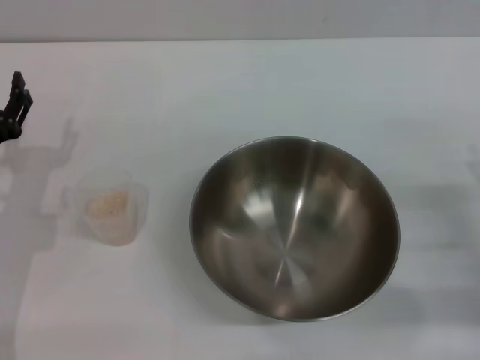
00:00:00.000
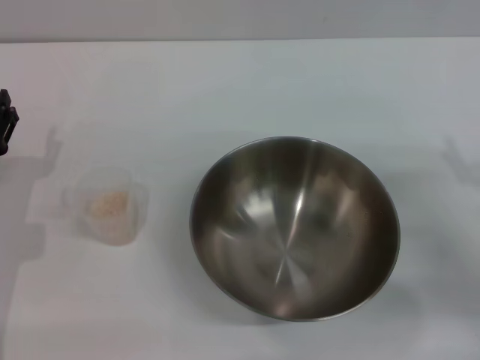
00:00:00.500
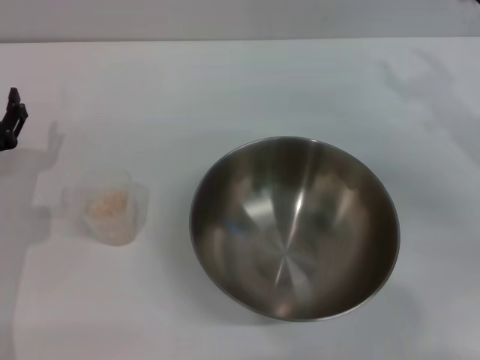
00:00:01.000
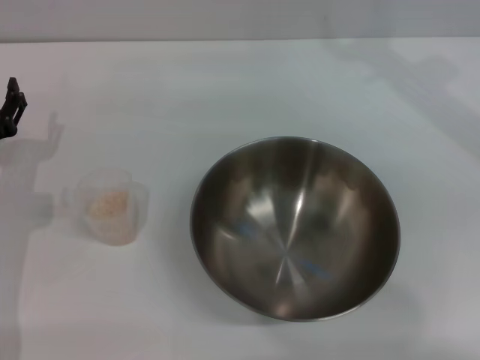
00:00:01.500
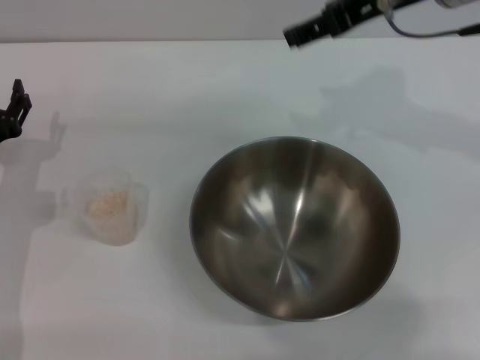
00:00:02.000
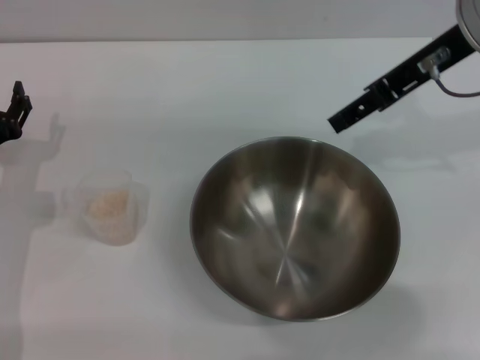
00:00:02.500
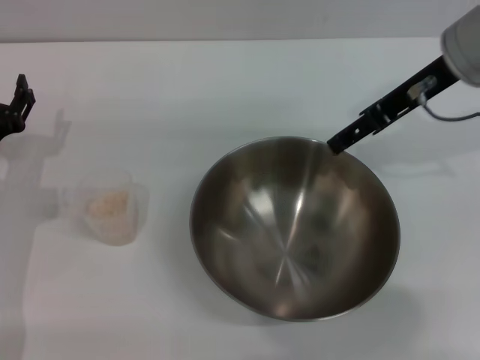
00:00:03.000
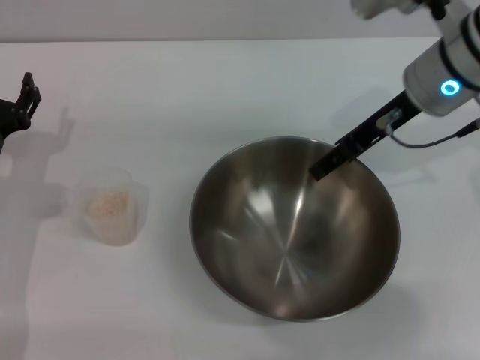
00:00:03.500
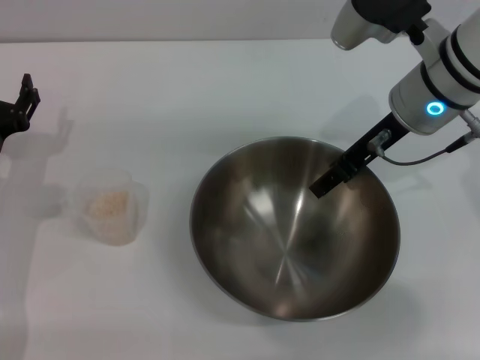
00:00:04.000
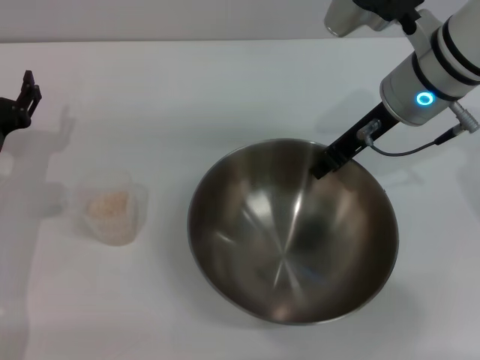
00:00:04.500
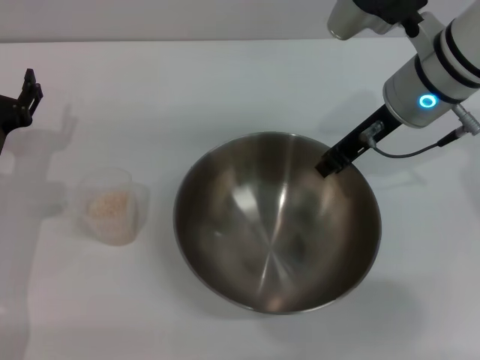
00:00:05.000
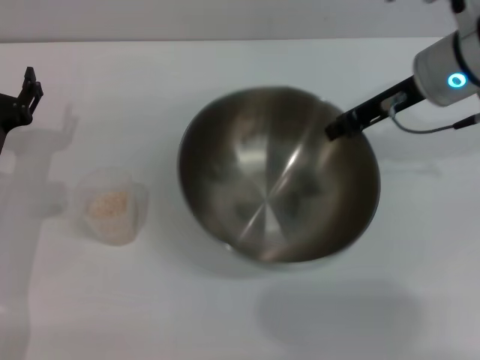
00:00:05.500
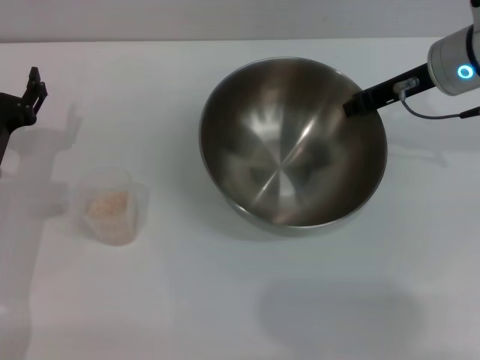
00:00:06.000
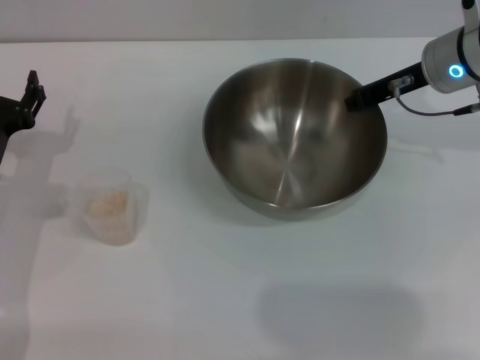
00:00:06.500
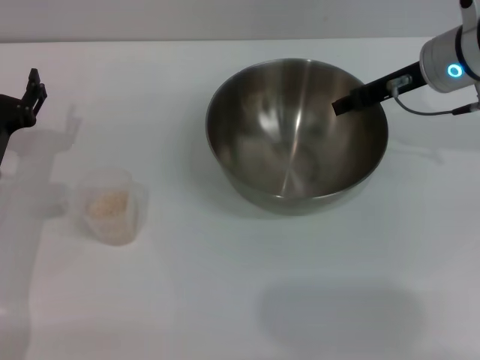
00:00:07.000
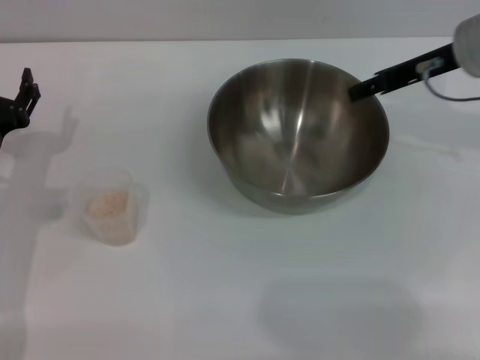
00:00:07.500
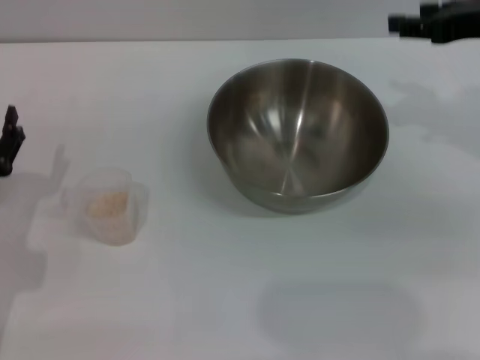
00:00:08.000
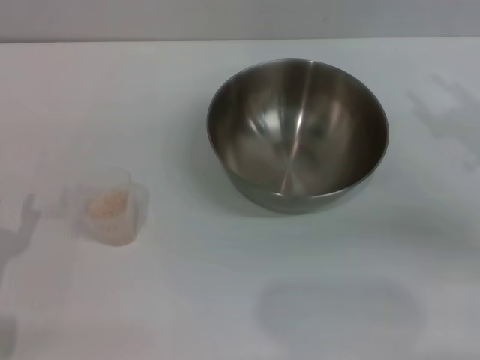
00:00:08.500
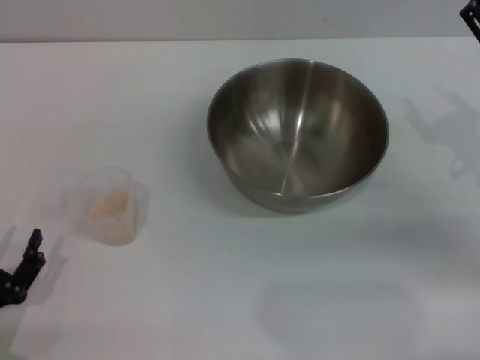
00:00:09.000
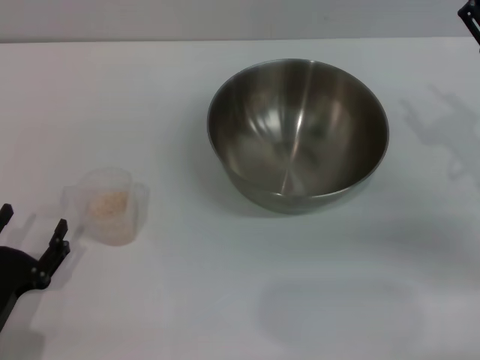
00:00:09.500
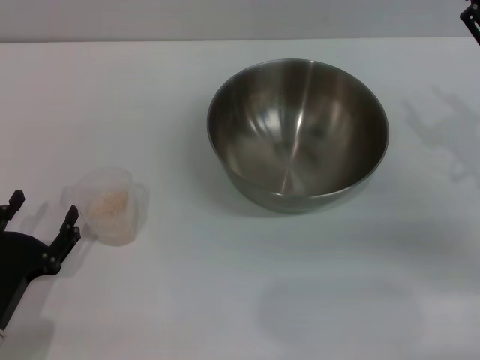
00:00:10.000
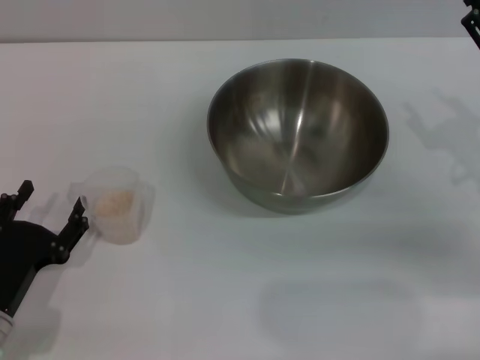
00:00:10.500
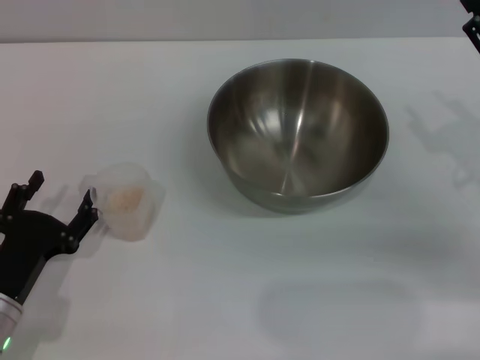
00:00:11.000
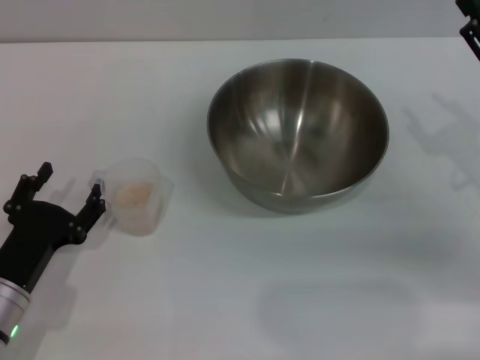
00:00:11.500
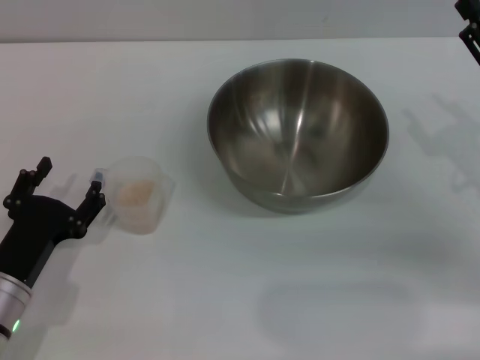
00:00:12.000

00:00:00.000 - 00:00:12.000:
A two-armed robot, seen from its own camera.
Task of the whole recording: Place the bowl in the middle of the table with one hand and pour the rice from the grain cup into it with the other hand.
Step, 00:00:00.000 - 00:00:05.500: Pick up the bowl with the right gripper.
Step, 00:00:06.000 - 00:00:07.500: Place the bowl in the center of view with the right gripper.
00:00:00.000 - 00:00:02.000: The right gripper heads upward, forward and to the left, covering some 35 cm.
00:00:02.000 - 00:00:04.000: The right gripper goes about 10 cm downward.
00:00:04.000 - 00:00:06.000: The right gripper moves about 5 cm, and closes.
00:00:06.000 - 00:00:08.000: The left gripper travels backward by some 5 cm; the right gripper travels upward, to the right and backward by roughly 10 cm, and opens.
00:00:08.000 - 00:00:10.000: The right gripper heads downward and backward, covering approximately 10 cm. The left gripper shifts roughly 10 cm backward.
00:00:10.000 - 00:00:12.000: The grippers move only a little.

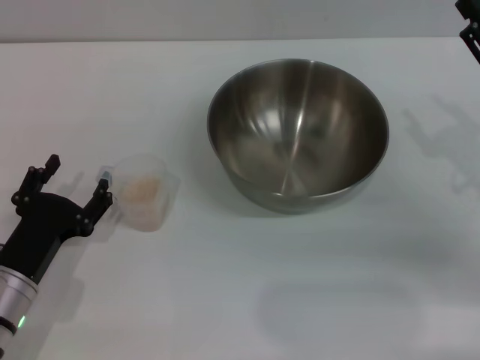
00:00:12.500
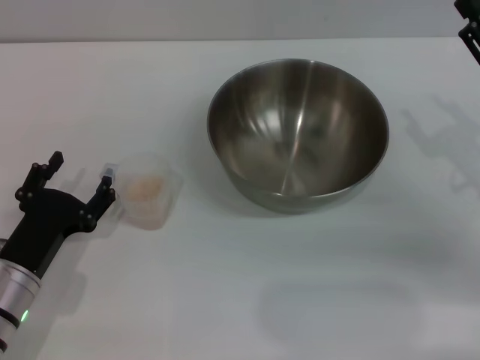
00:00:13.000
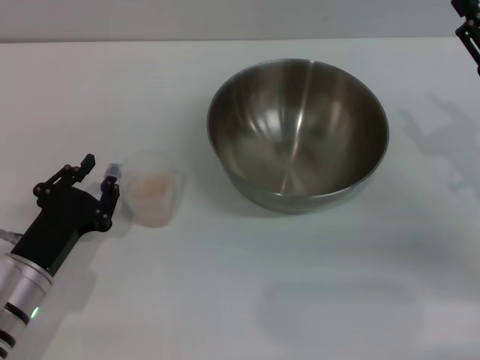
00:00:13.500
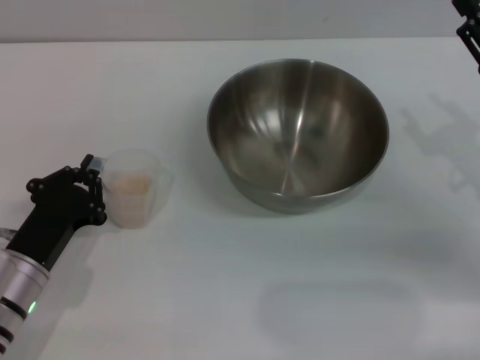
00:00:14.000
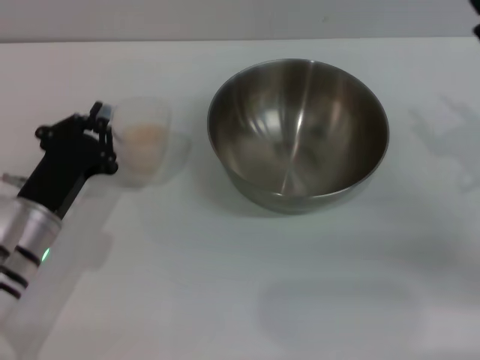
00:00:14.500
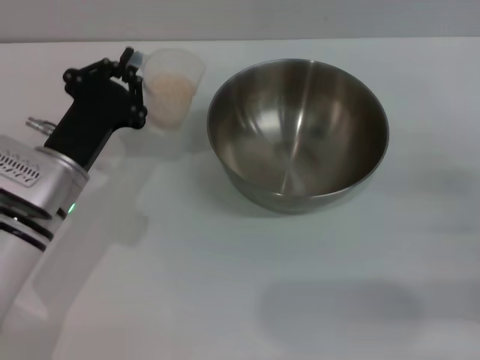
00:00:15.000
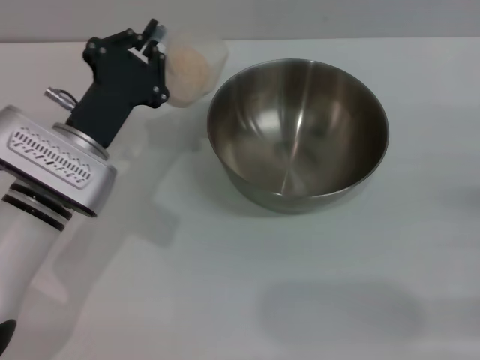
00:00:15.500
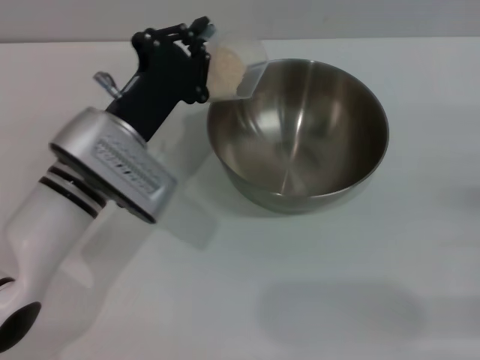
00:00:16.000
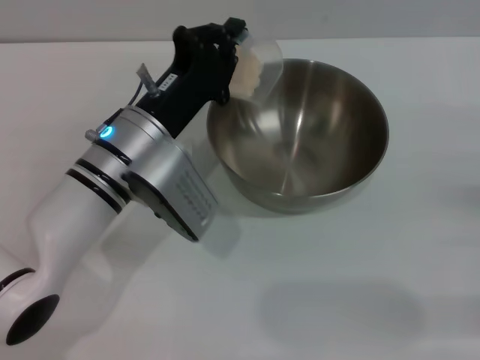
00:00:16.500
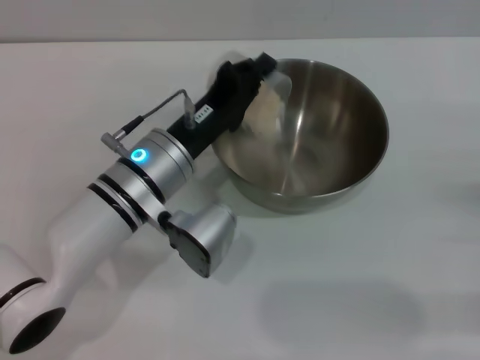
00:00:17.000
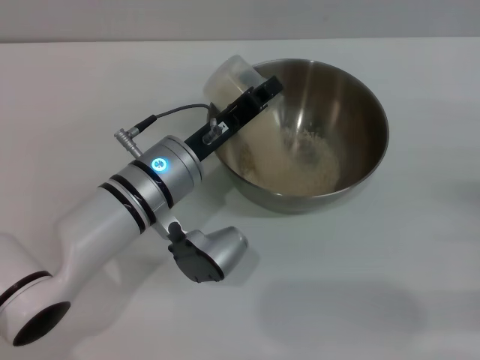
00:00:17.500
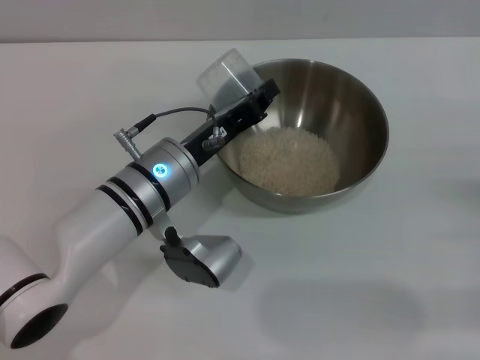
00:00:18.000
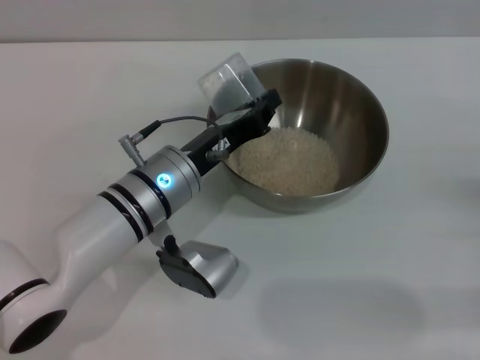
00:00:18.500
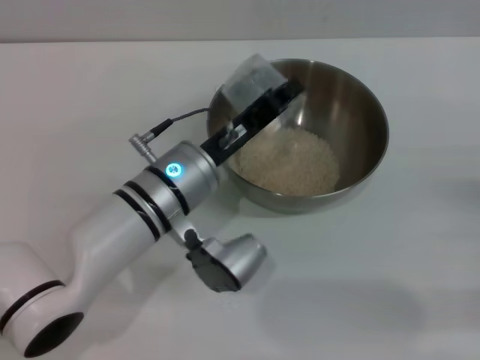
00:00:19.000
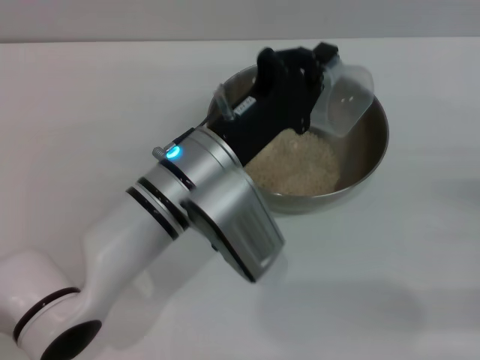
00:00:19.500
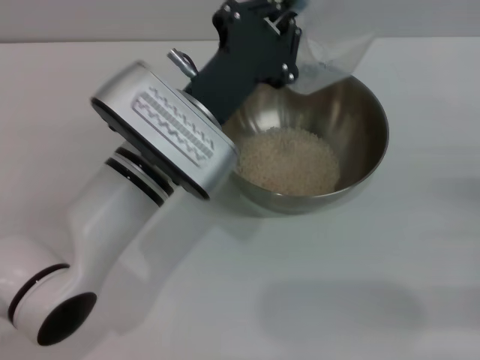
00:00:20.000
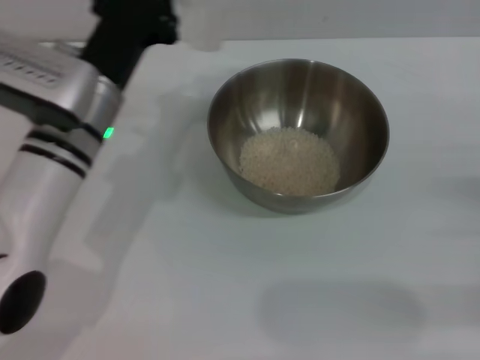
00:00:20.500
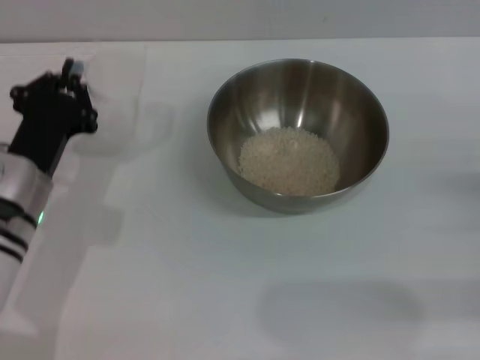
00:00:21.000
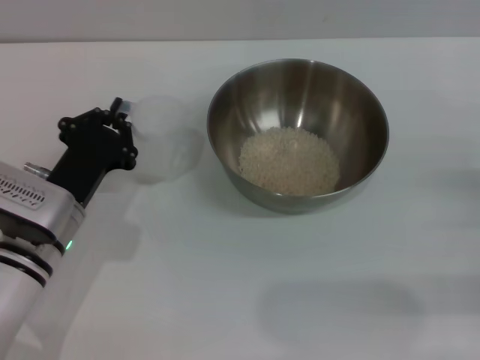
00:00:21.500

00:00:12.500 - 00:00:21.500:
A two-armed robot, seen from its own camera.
Task of the whole recording: Place the bowl in the middle of the table with one hand and pour the rice from the grain cup into it with the other hand.
Step, 00:00:14.500 - 00:00:18.000: Pour the rice from the cup into the bowl with the left gripper.
00:00:12.500 - 00:00:14.500: The left gripper heads forward, covering roughly 5 cm, and closes.
00:00:14.500 - 00:00:17.000: The right gripper shifts approximately 10 cm backward and to the right, while the left gripper goes some 10 cm to the right.
00:00:17.000 - 00:00:19.500: The left gripper shifts by some 5 cm.
00:00:19.500 - 00:00:21.500: The left gripper moves to the left and downward, some 15 cm.

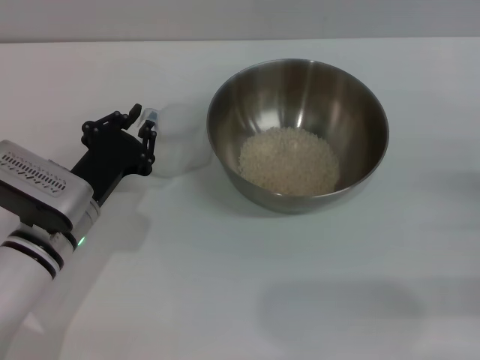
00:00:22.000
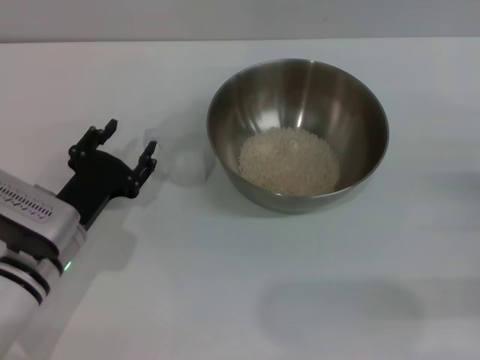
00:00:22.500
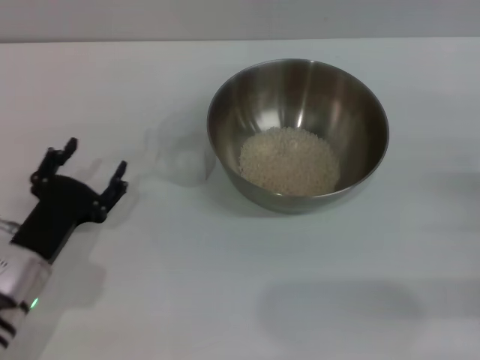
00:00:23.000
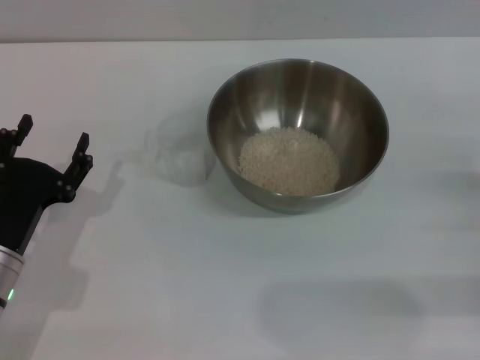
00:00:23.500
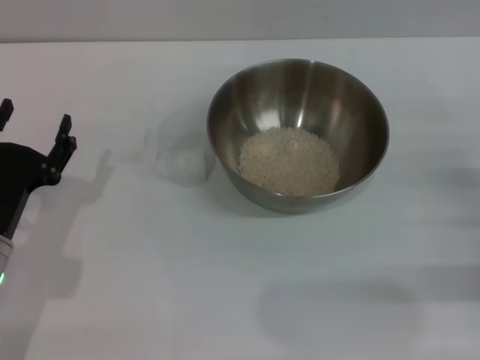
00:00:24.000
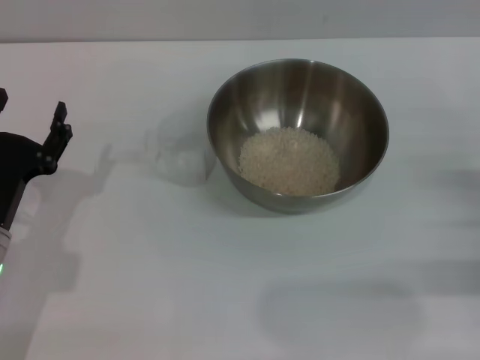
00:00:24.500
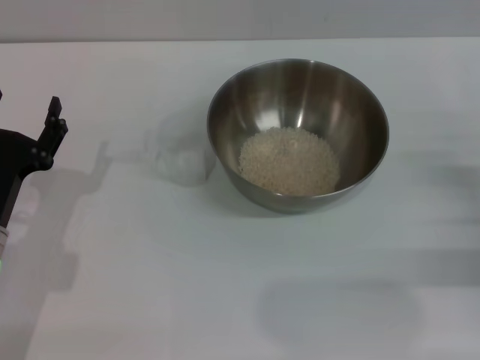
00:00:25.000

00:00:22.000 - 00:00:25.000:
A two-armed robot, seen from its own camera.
Task of the whole recording: Place the bowl in the middle of the table with one hand and pour the rice from the grain cup into it with the other hand.
00:00:22.000 - 00:00:23.500: The left gripper shifts about 10 cm backward and to the left, and opens up.
00:00:23.500 - 00:00:25.000: There are only small adjustments of the grippers.
